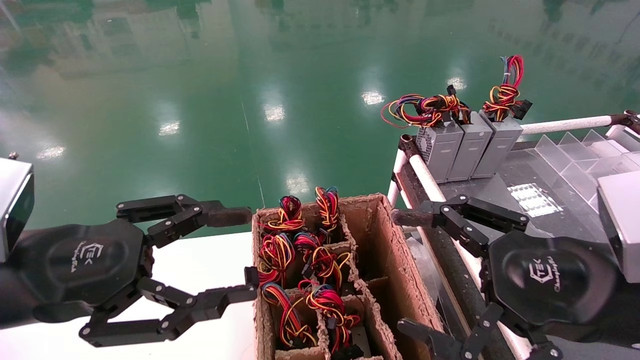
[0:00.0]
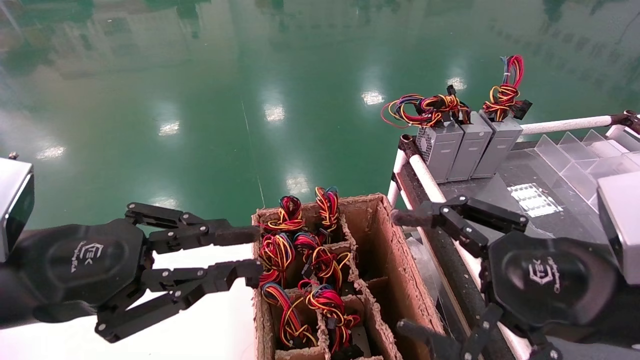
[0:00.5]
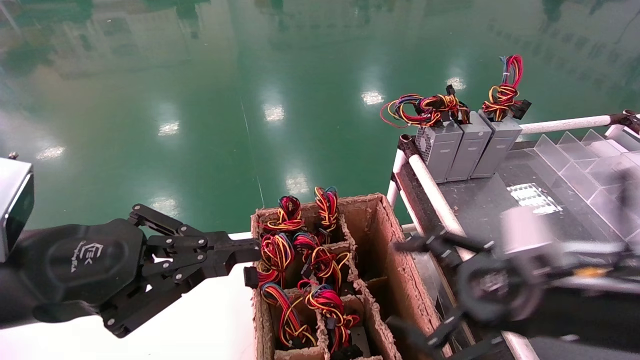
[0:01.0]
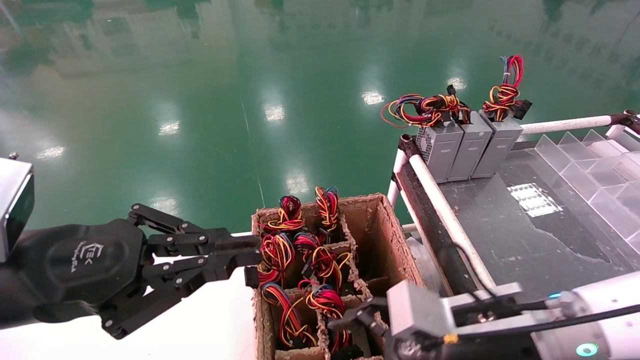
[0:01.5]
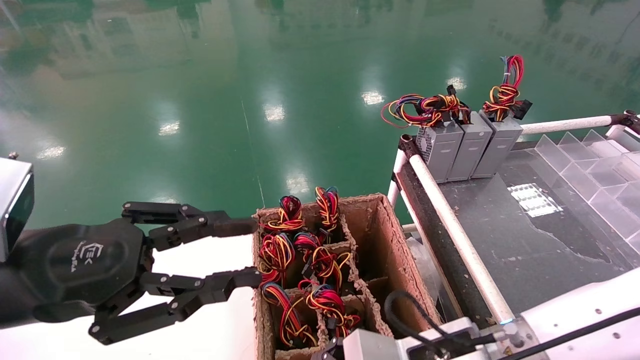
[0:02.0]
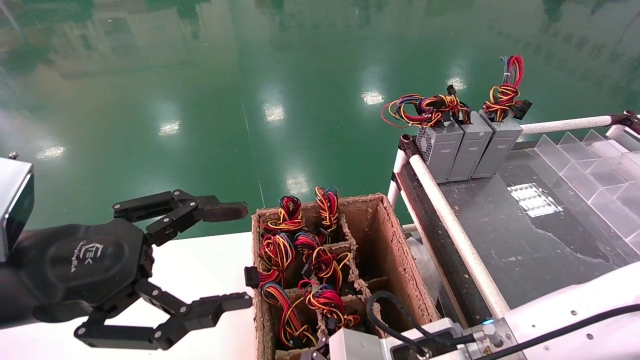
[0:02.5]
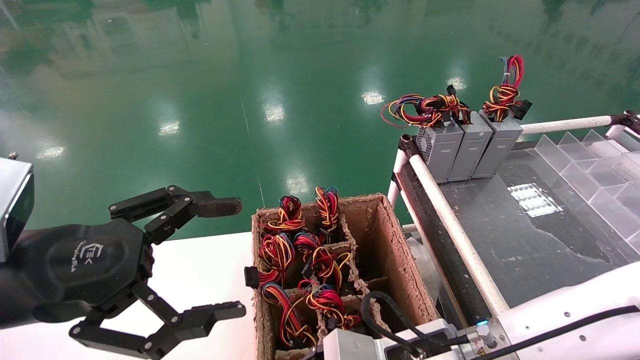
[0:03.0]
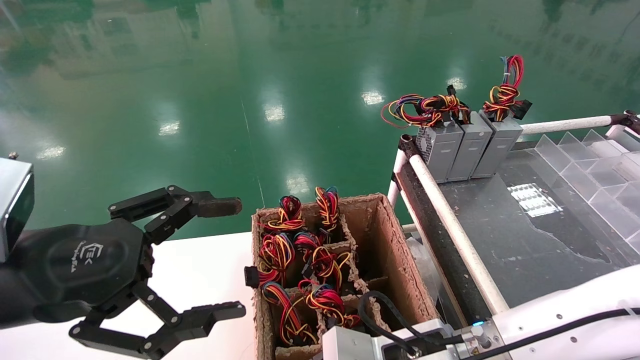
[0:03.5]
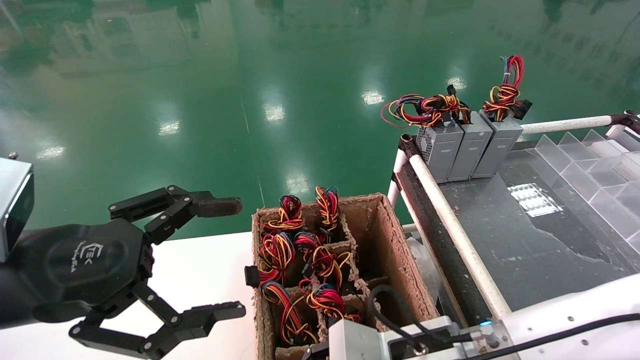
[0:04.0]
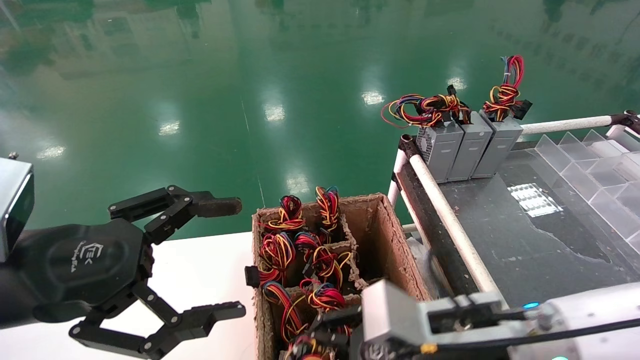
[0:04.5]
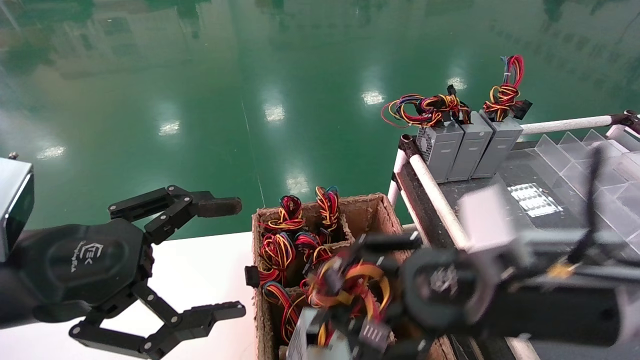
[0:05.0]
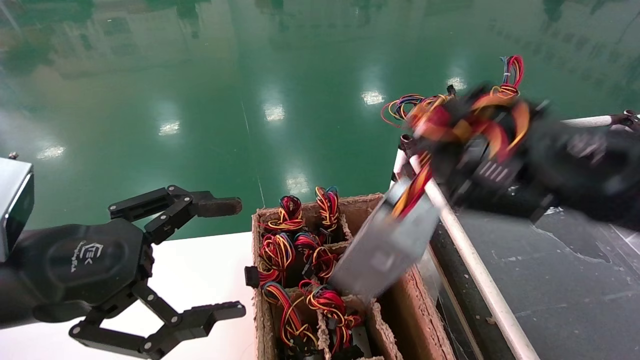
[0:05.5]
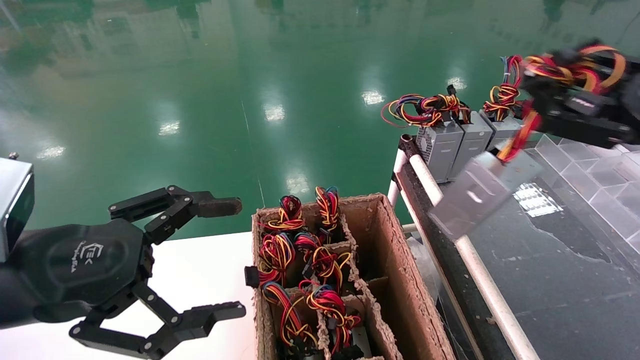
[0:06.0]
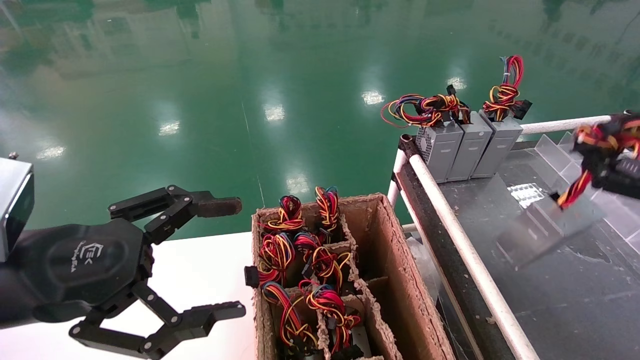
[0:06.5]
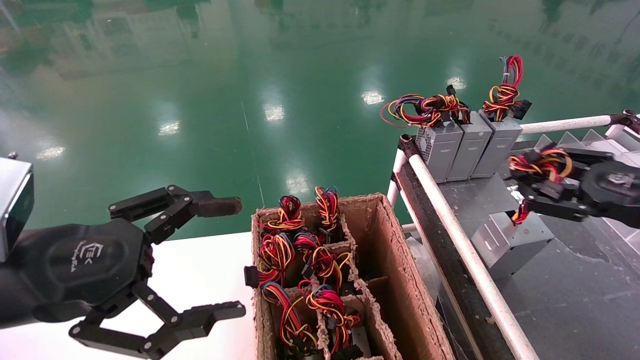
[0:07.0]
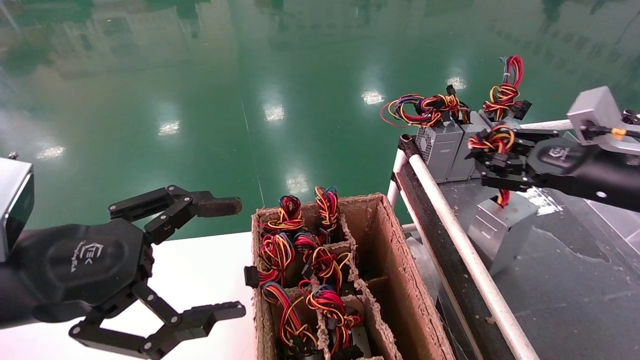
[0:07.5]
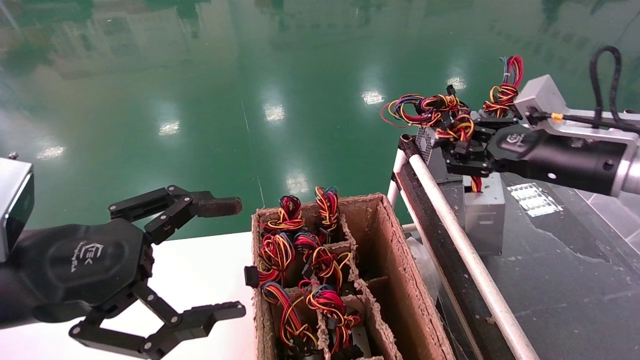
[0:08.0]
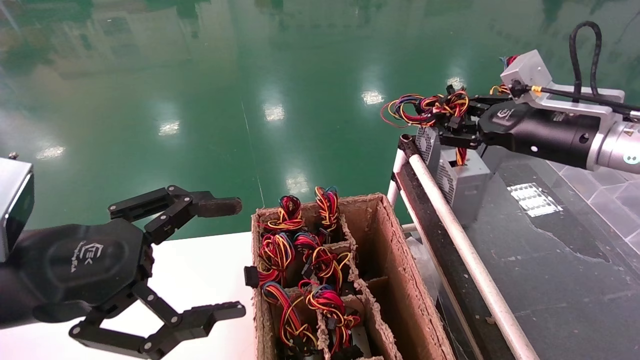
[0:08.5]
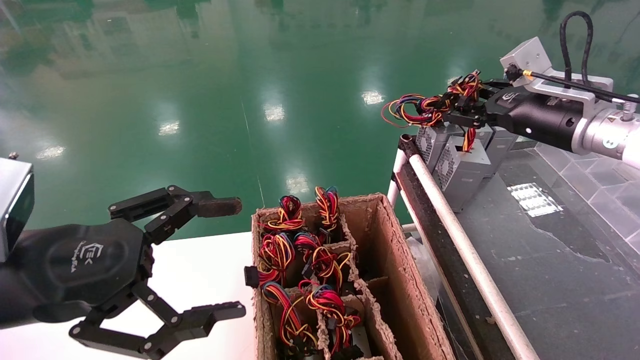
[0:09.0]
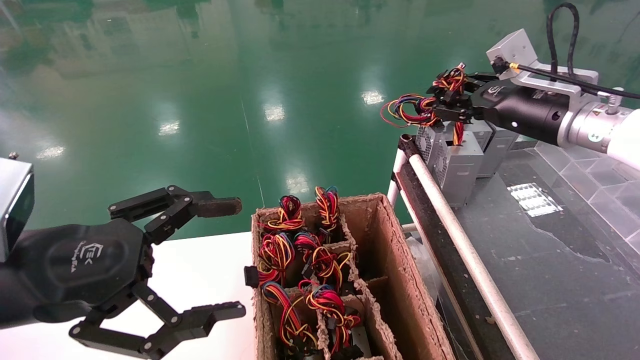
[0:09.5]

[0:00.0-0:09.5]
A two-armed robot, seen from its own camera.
Step, 0:01.5 to 0:04.0: Grab and lift the power supply from the large box.
0:00.0 to 0:02.0: The right gripper heads downward, to the left and forward, covering roughly 20 cm. Meanwhile the left gripper closes up.
0:02.0 to 0:04.0: The right gripper closes up, while the left gripper opens its fingers.
0:04.0 to 0:05.5: The right gripper shifts approximately 25 cm upward and to the right.
0:05.5 to 0:07.5: The right gripper travels forward and to the right by roughly 15 cm.
0:07.5 to 0:09.5: The right gripper moves forward, to the left and upward, roughly 10 cm.

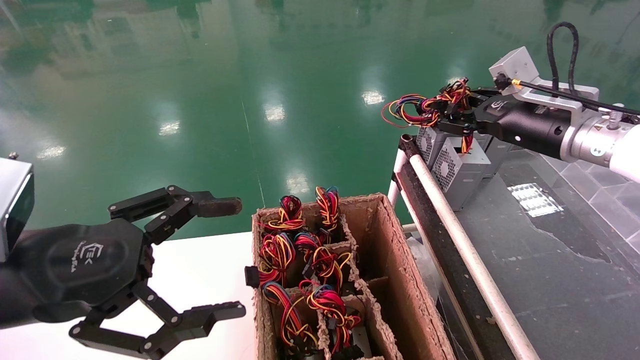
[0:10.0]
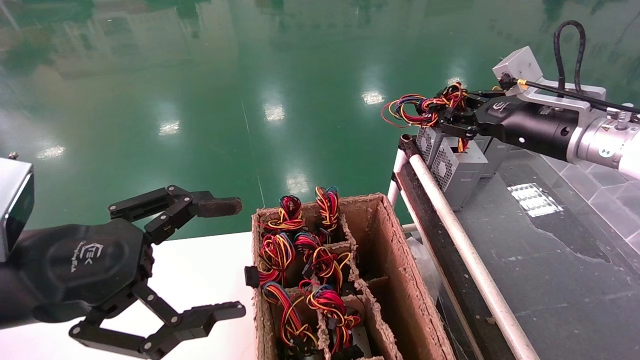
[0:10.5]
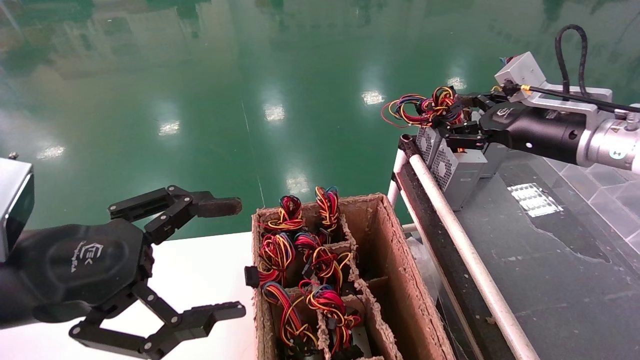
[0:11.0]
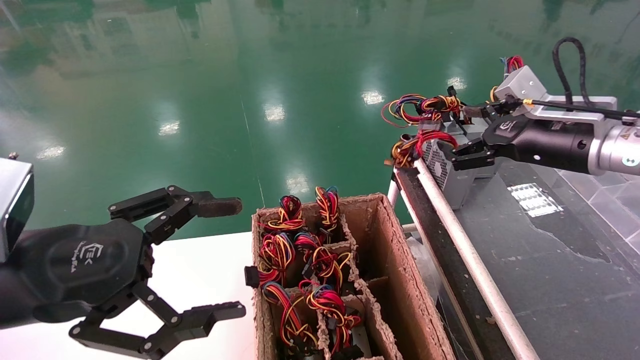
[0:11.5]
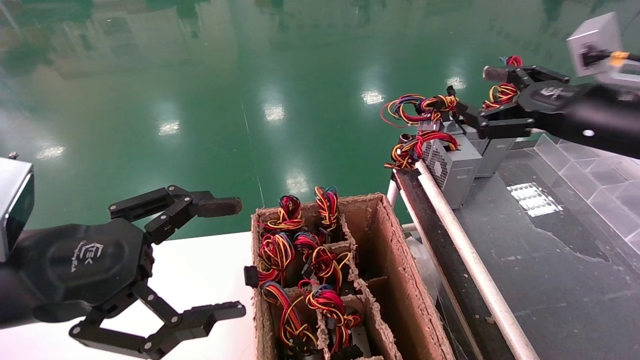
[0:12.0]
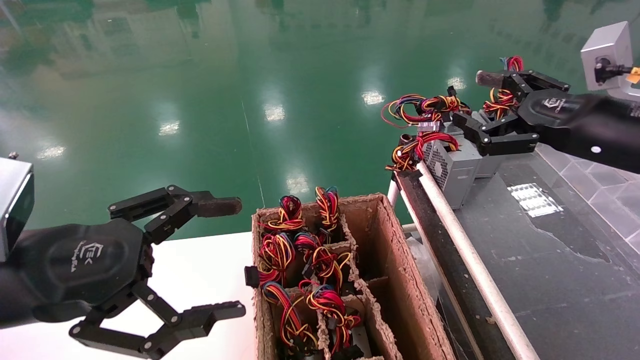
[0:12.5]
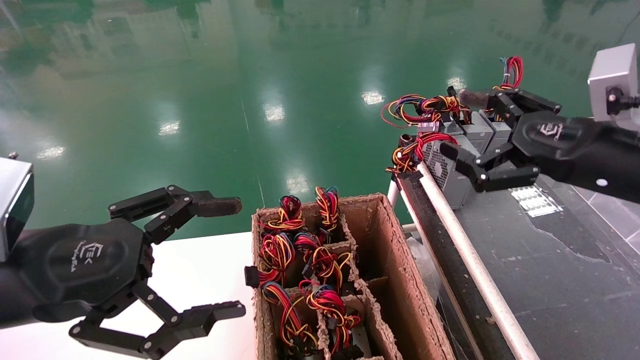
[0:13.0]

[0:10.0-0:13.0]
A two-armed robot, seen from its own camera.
0:10.0 to 0:11.5: The right gripper opens its fingers.
0:11.5 to 0:13.0: The right gripper is displaced backward by roughly 10 cm.

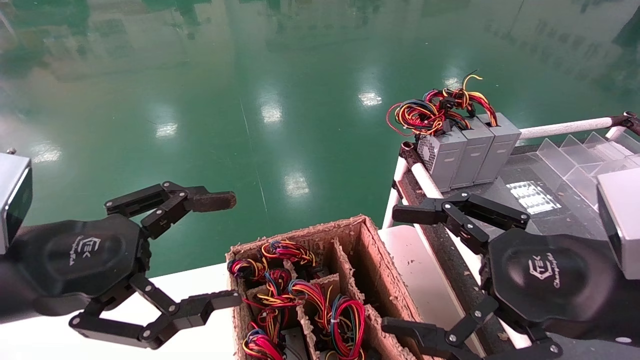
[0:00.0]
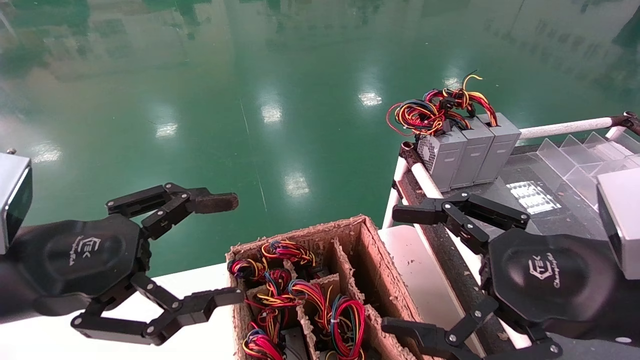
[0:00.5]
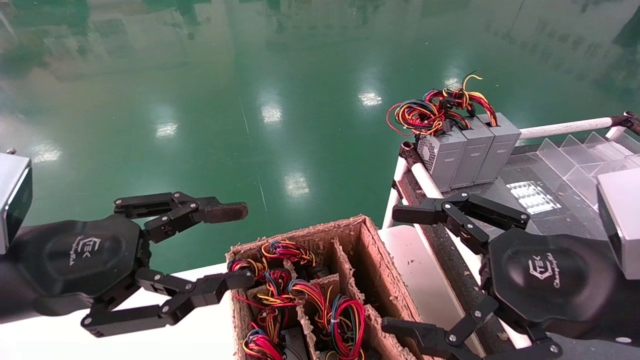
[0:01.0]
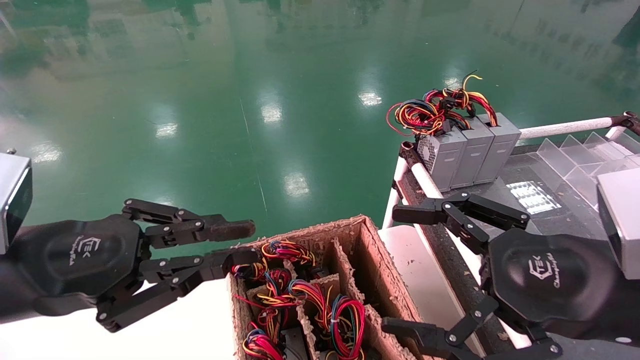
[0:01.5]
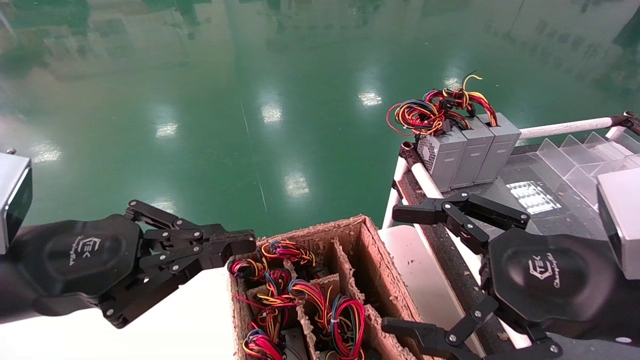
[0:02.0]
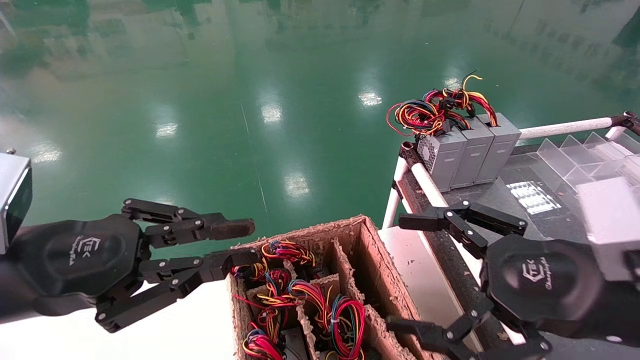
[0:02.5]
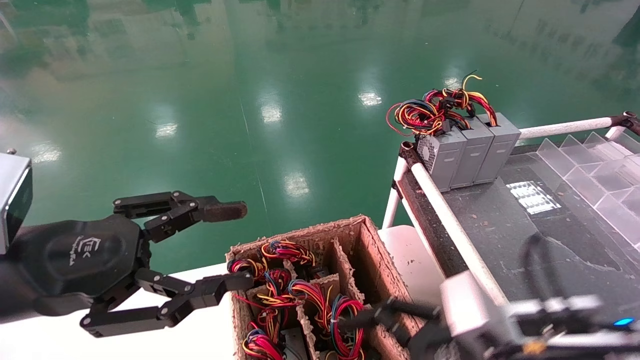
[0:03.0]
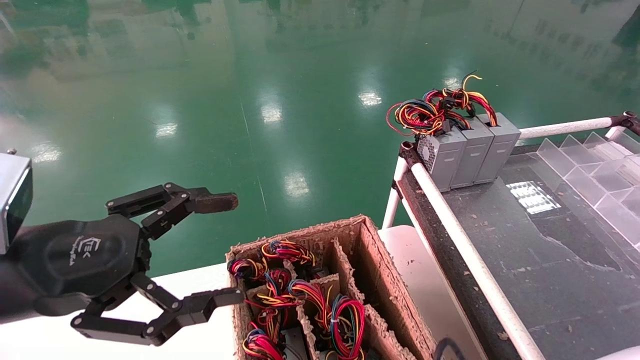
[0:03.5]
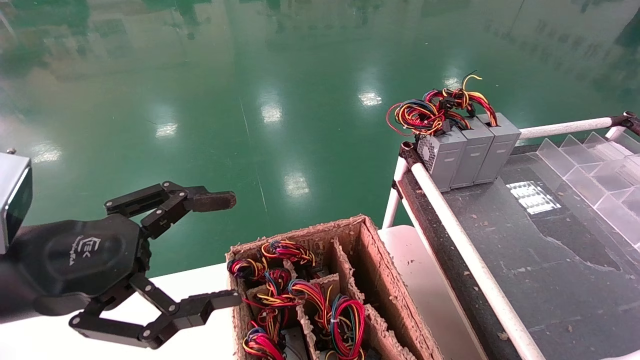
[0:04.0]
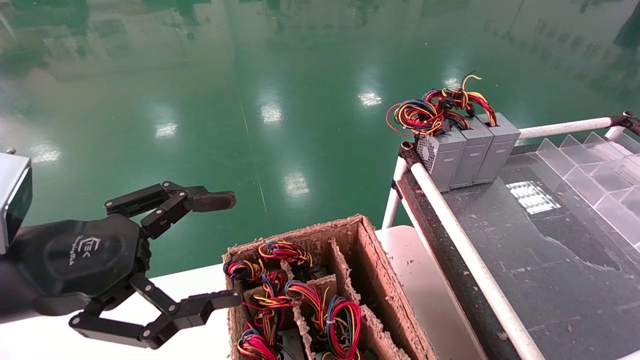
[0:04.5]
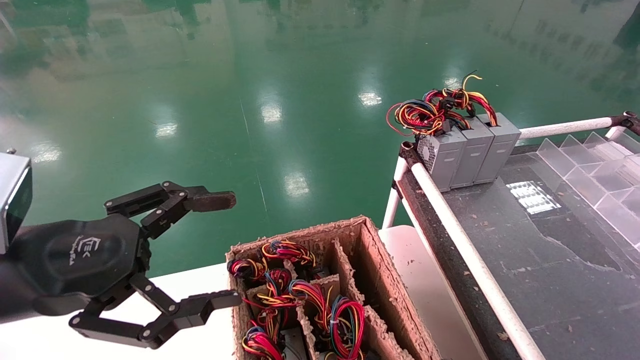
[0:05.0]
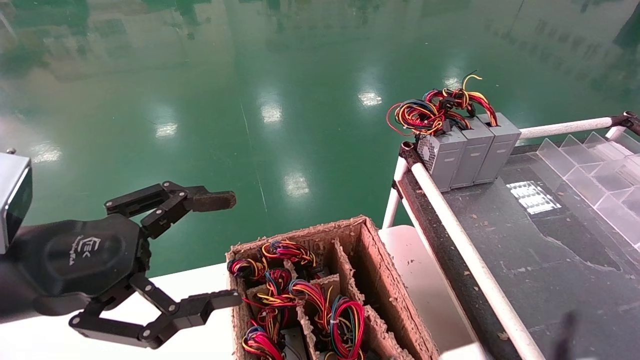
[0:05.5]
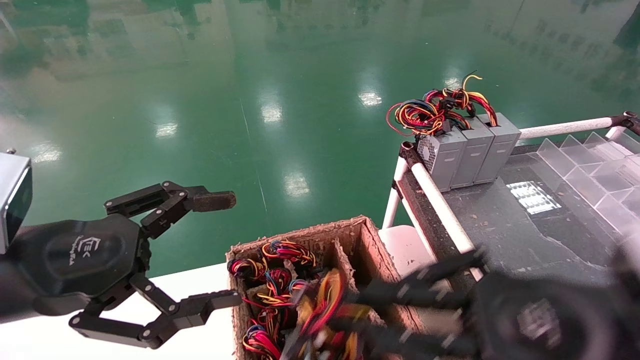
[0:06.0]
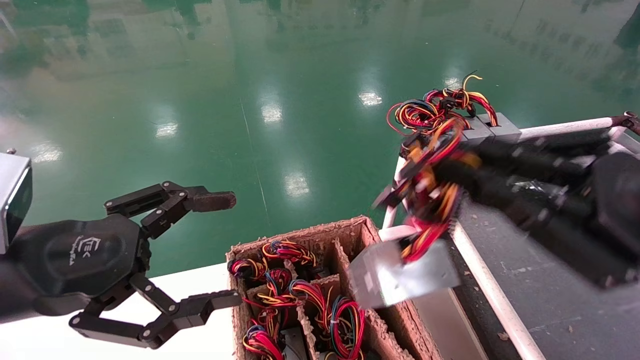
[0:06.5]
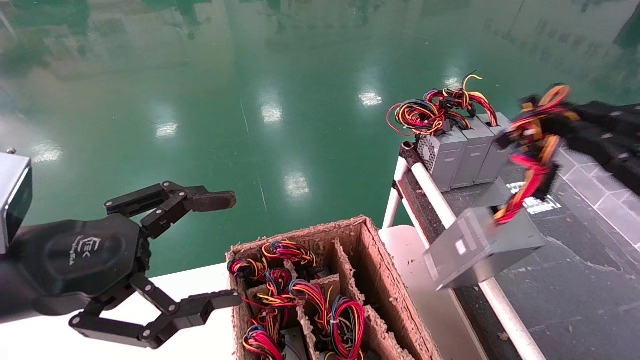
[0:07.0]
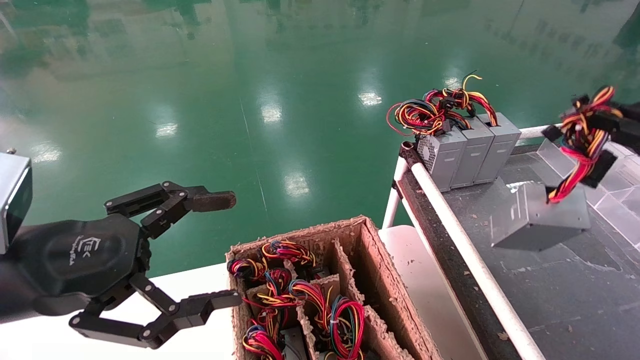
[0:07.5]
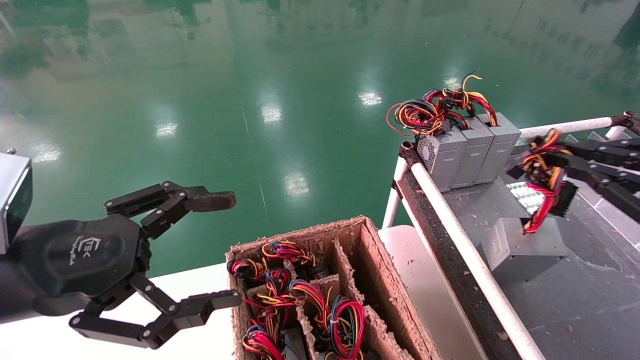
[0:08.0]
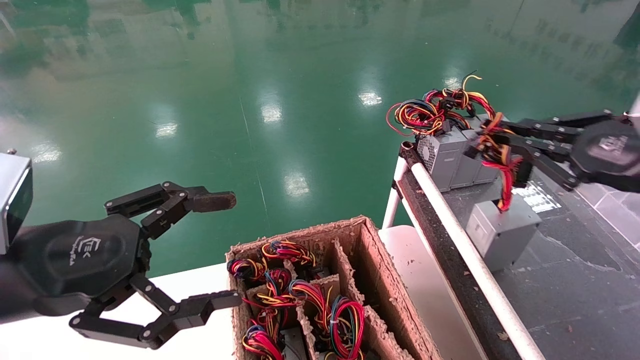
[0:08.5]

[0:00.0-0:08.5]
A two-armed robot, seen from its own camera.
Step, 0:02.0 to 0:04.5: Grab and lift the power supply from the large box.
0:00.0 to 0:02.0: The left gripper closes.
0:02.0 to 0:04.0: The right gripper travels downward and to the left by some 20 cm, while the left gripper opens up.
0:04.0 to 0:06.5: The right gripper heads upward and to the right, covering about 25 cm, and closes its fingers.
0:06.5 to 0:08.5: The right gripper heads forward and to the right, covering roughly 15 cm.
